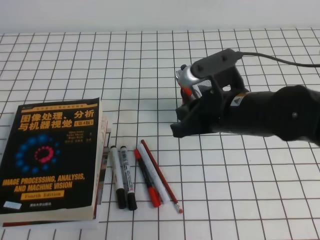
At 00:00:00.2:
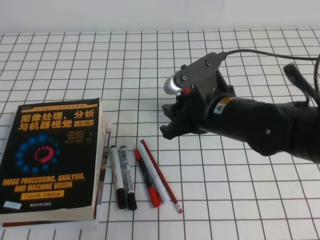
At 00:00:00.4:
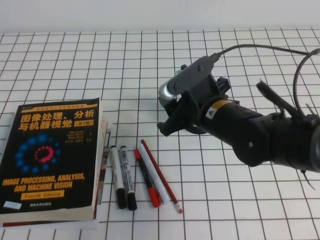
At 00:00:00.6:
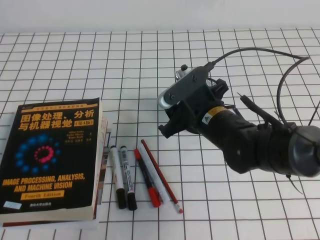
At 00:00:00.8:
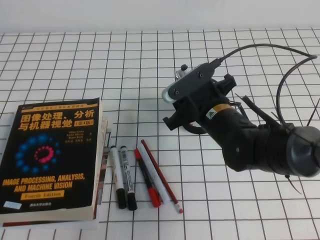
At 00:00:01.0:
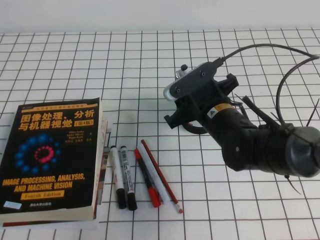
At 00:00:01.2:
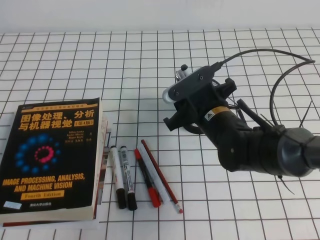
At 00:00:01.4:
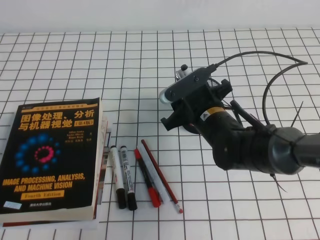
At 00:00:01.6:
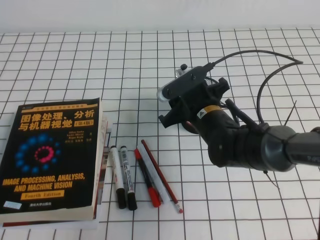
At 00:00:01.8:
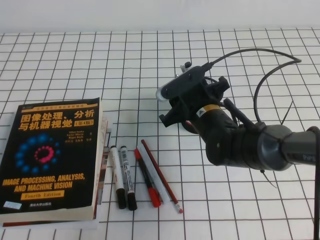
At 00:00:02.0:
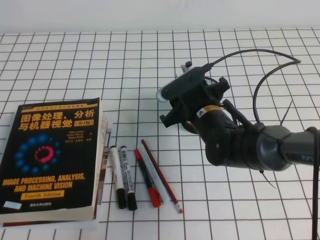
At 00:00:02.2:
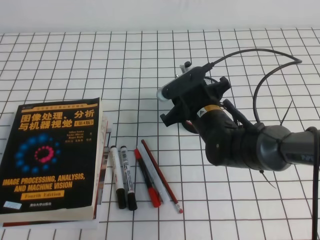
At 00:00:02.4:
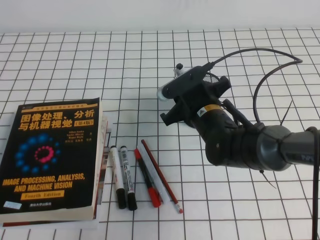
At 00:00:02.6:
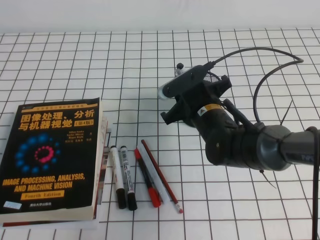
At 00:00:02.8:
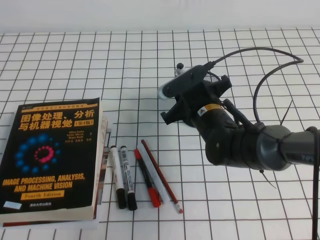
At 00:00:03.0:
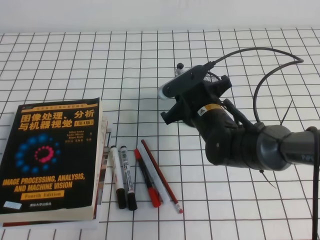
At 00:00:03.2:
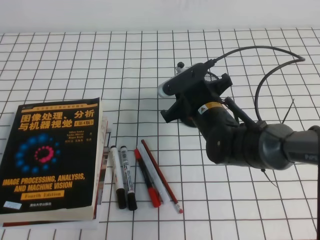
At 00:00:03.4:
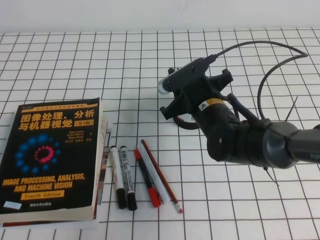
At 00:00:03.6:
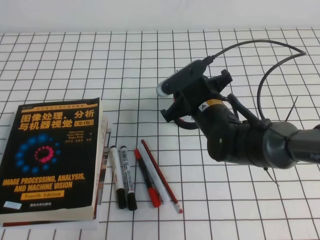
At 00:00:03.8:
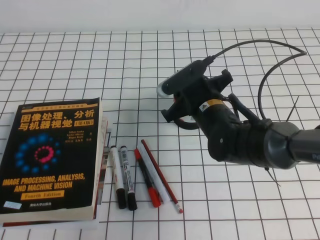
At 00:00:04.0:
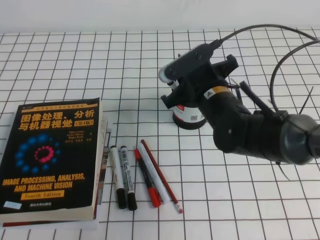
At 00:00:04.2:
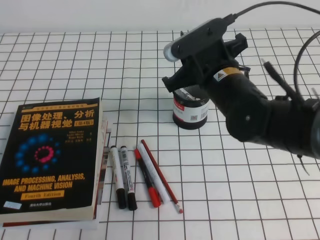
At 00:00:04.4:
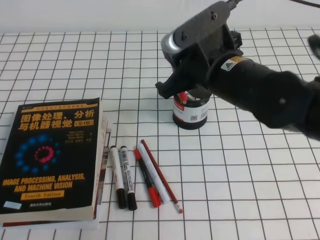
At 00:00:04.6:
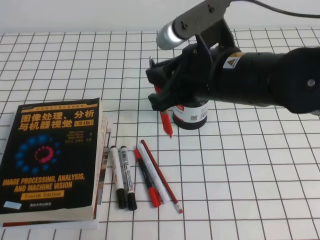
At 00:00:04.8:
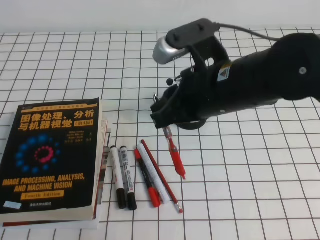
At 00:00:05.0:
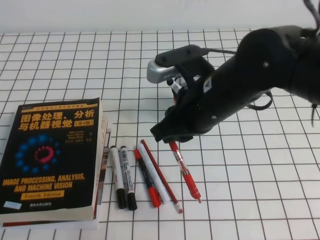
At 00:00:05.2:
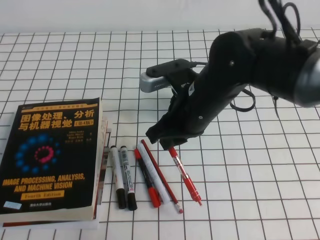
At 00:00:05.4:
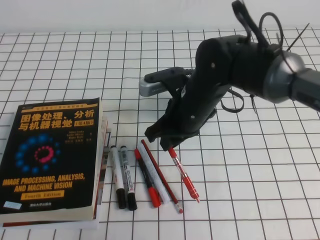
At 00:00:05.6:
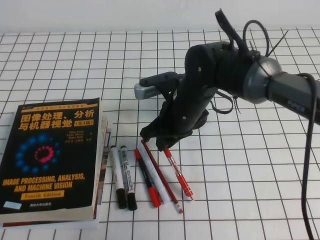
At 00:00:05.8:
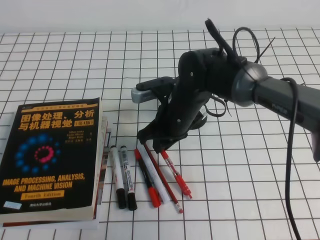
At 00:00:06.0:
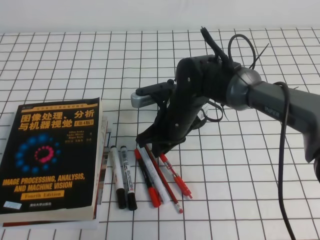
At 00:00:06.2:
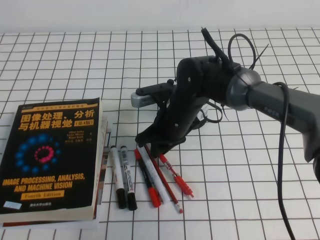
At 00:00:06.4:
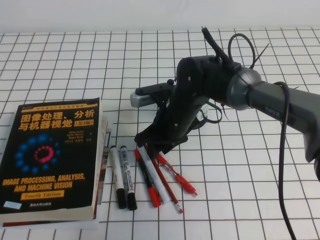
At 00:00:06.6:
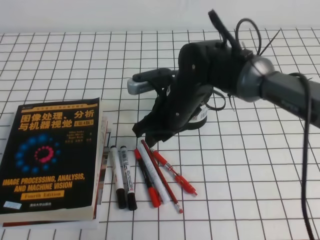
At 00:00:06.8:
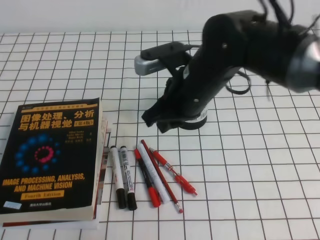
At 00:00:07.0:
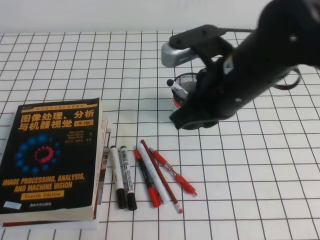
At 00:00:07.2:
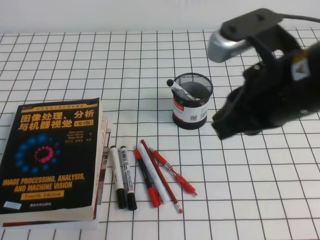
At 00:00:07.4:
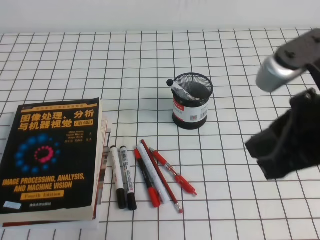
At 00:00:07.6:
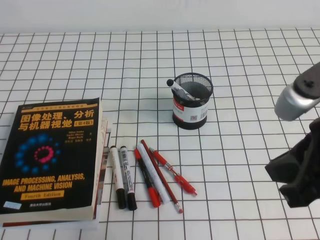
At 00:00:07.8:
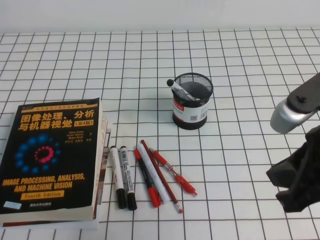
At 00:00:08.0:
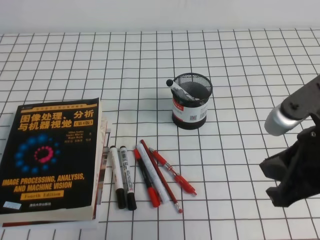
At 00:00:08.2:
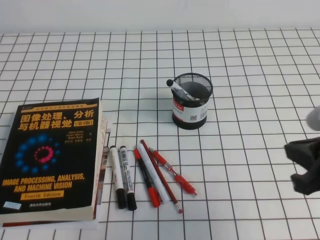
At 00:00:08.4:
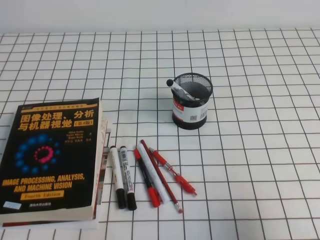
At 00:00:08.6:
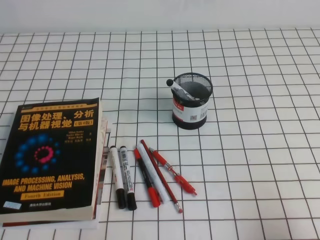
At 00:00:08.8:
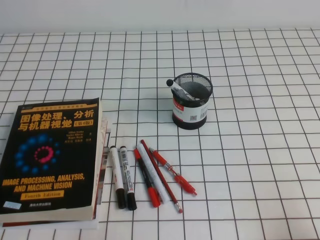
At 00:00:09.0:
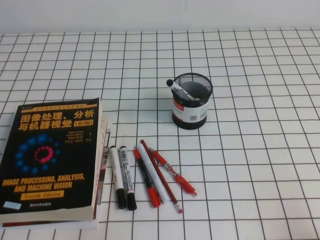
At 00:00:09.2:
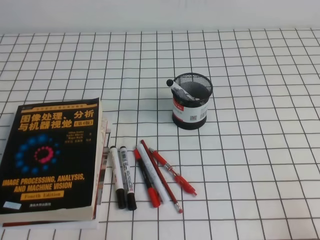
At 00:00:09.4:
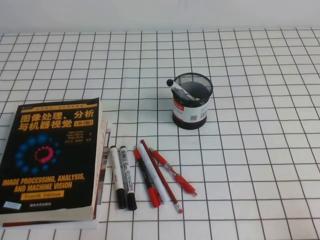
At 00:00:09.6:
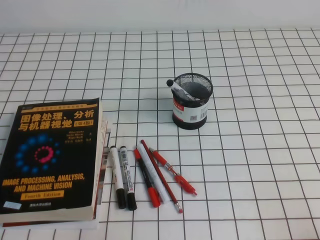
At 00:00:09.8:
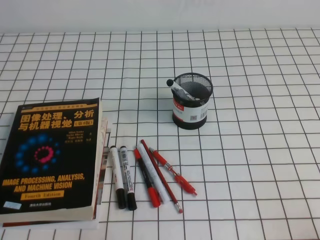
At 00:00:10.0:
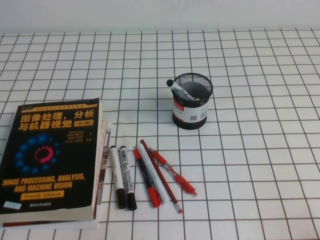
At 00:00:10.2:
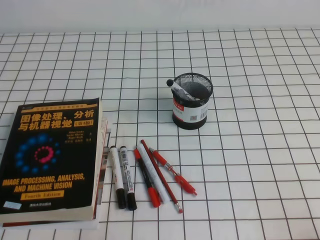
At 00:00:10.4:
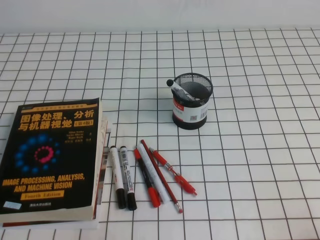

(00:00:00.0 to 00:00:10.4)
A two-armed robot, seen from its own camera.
Step, 00:00:00.0 - 00:00:10.4: Pick up the pen from the pen holder.
00:00:00.0 - 00:00:01.4: The right gripper is displaced downward and forward by about 10 cm, and opens.
00:00:01.4 - 00:00:03.0: The right gripper closes.
00:00:03.0 - 00:00:04.4: The right gripper travels upward by approximately 10 cm.
00:00:04.4 - 00:00:06.0: The right gripper goes about 15 cm downward, forward and to the left.
00:00:06.0 - 00:00:07.4: The right gripper shifts approximately 30 cm backward, upward and to the right, and opens, then closes again.
00:00:07.4 - 00:00:09.0: The right gripper shifts some 25 cm downward, to the right and backward.
